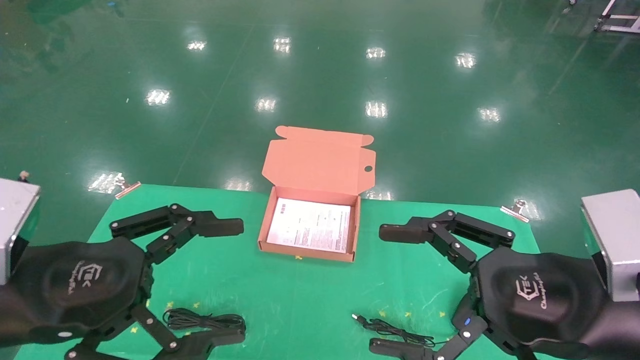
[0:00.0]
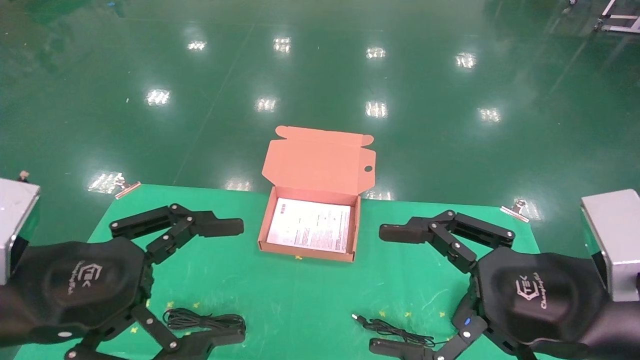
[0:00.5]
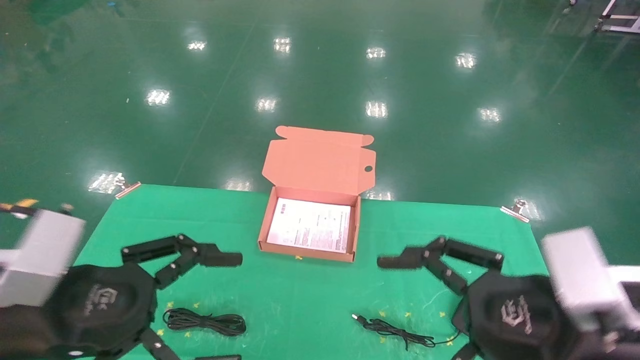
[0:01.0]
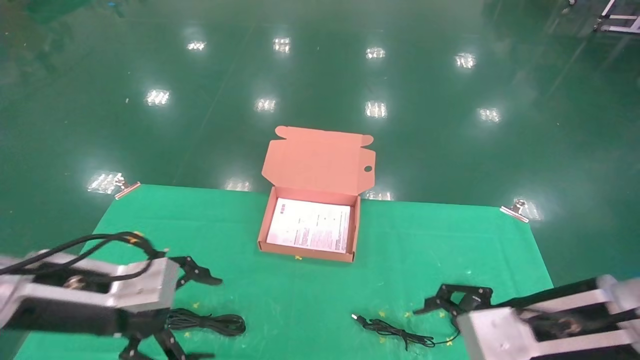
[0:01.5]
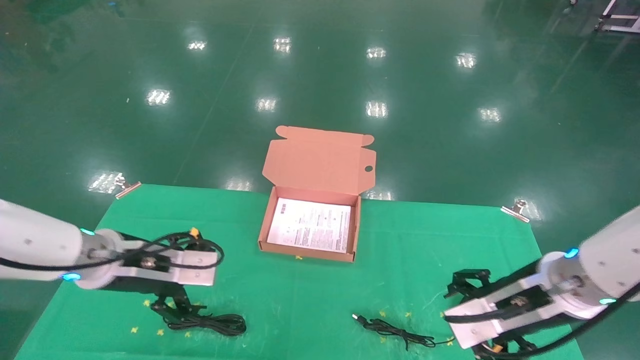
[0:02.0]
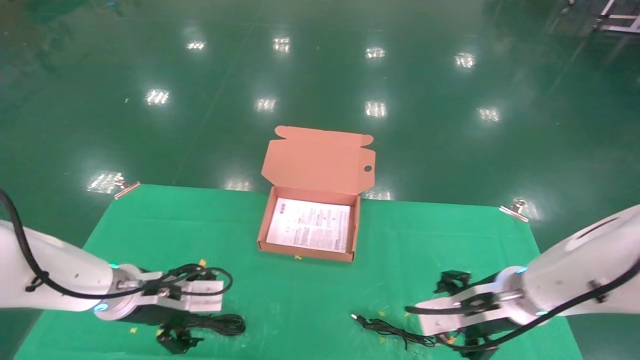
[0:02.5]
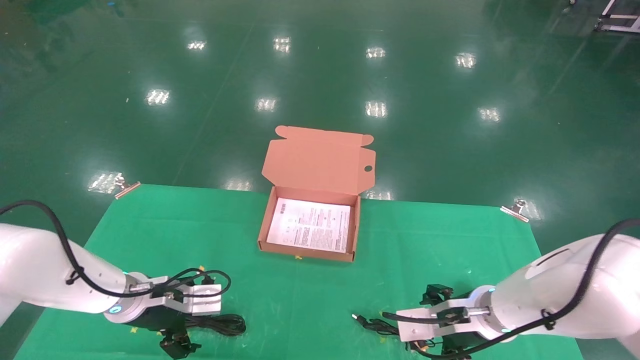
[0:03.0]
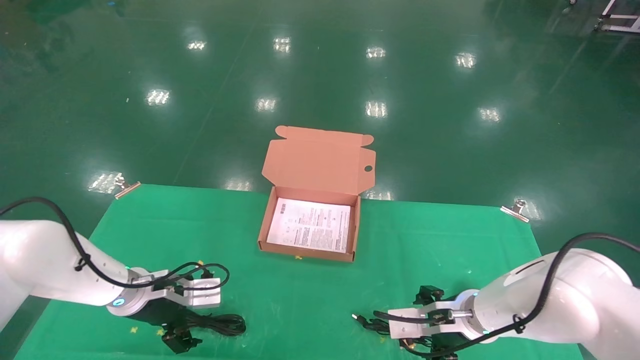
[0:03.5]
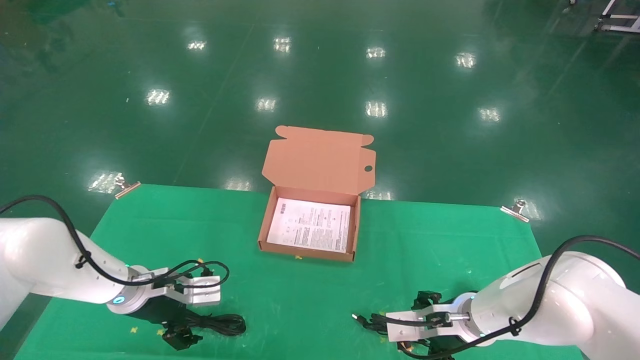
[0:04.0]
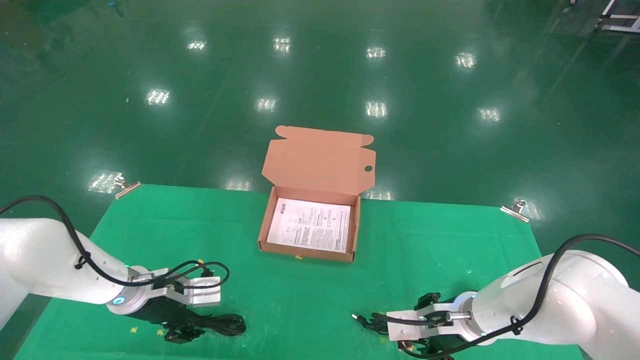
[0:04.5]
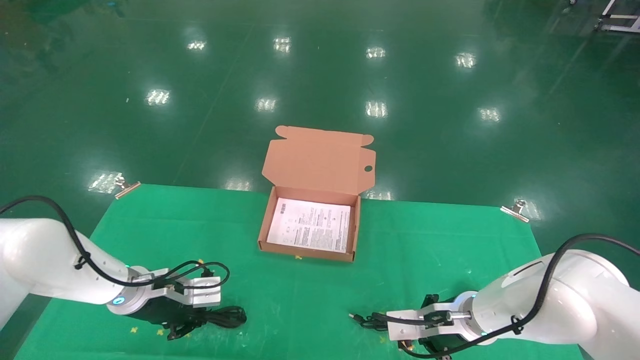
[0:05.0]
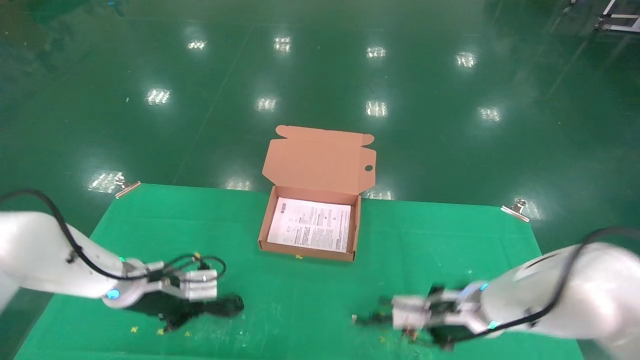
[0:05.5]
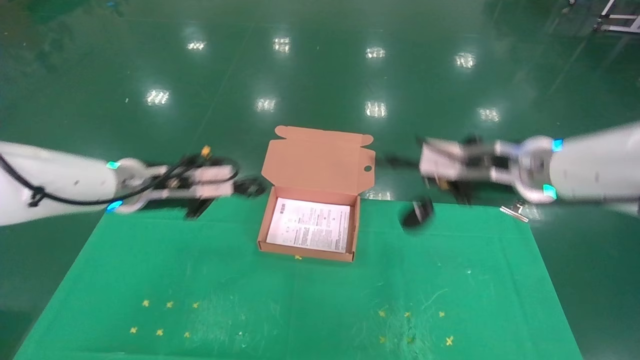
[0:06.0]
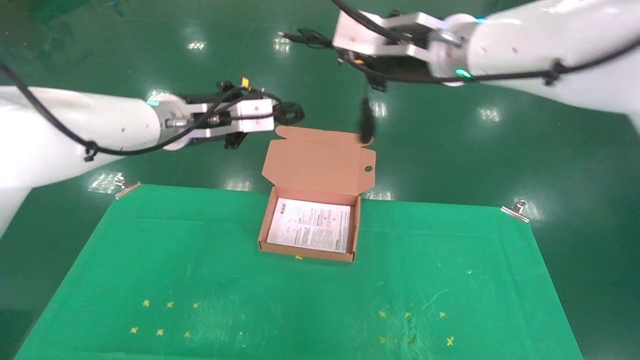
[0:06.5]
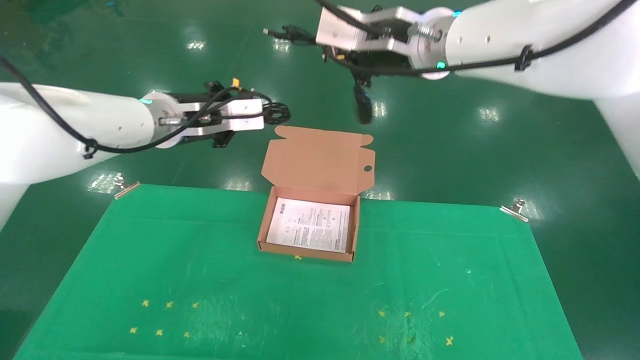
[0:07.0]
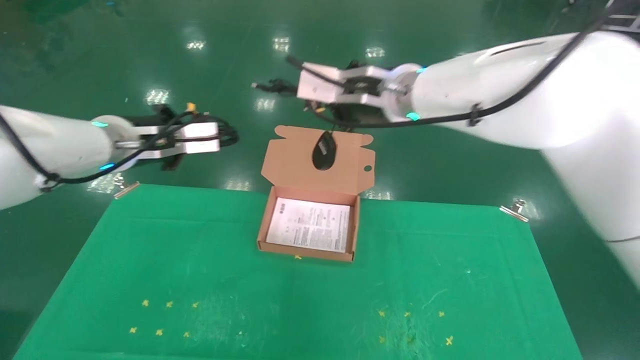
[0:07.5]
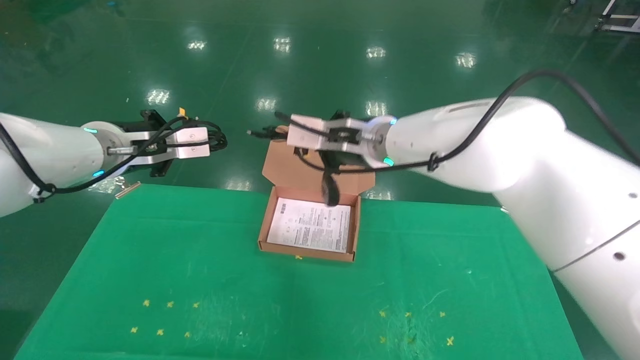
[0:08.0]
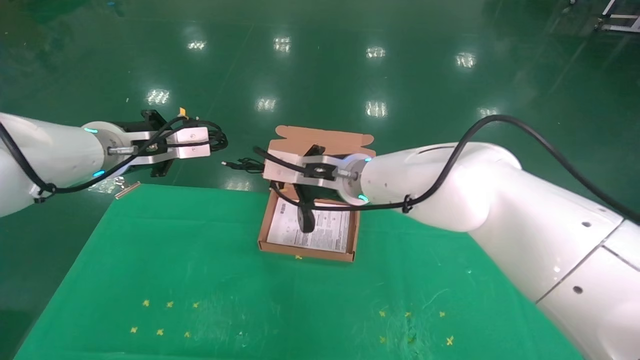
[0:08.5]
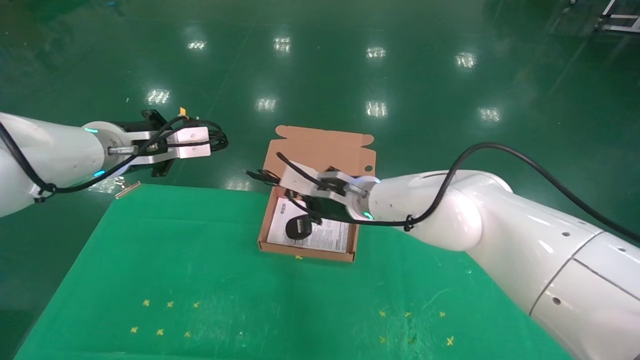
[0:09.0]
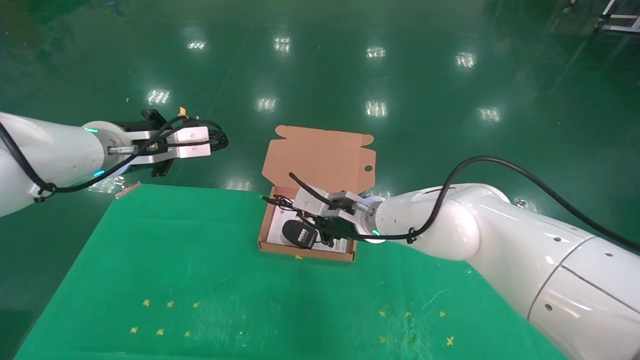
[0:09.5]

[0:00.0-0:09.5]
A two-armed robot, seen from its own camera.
Task of the whole recording: grasp data cable left put into box grasp mouse right put into box.
Step, 0:01.5 to 0:05.5: Grab and pick up both the mouse and power cord from the accessory packaging area at the same time.
0:00.0 to 0:02.0: Both grippers travel together forward and downward, approximately 15 cm.
0:02.0 to 0:04.0: The left gripper is displaced downward and forward by about 10 cm, while the right gripper moves downward, forward and to the left, some 15 cm.
0:04.0 to 0:05.5: The left gripper closes up, while the right gripper shifts about 5 cm upward, and closes.
0:05.5 to 0:07.5: The left gripper shifts approximately 20 cm upward; the right gripper is displaced upward and to the left by some 30 cm.
0:07.5 to 0:09.5: The right gripper goes about 20 cm downward.

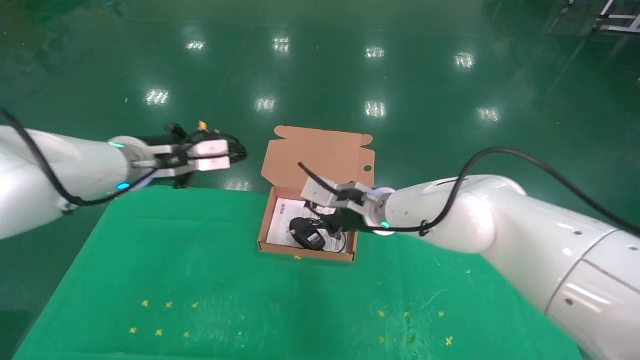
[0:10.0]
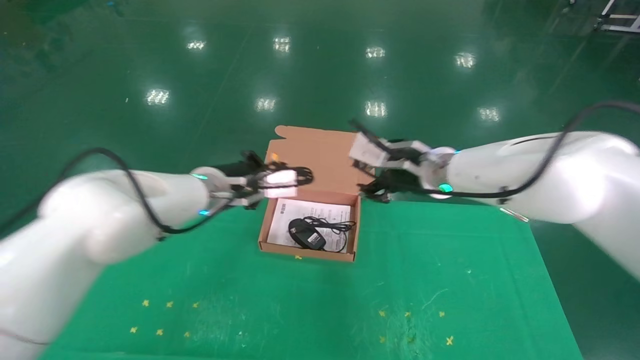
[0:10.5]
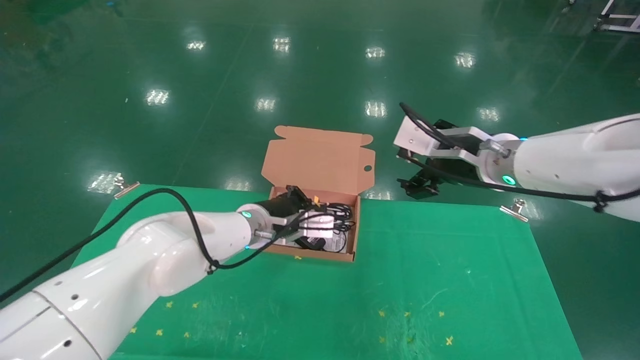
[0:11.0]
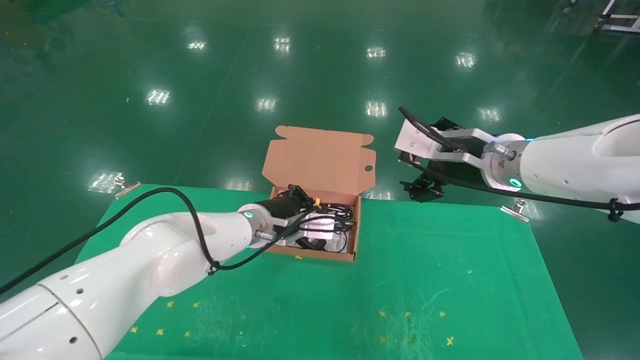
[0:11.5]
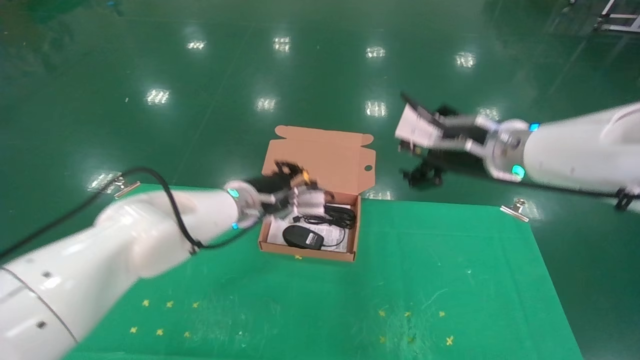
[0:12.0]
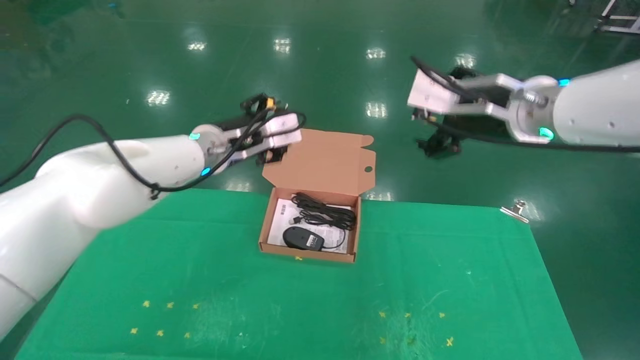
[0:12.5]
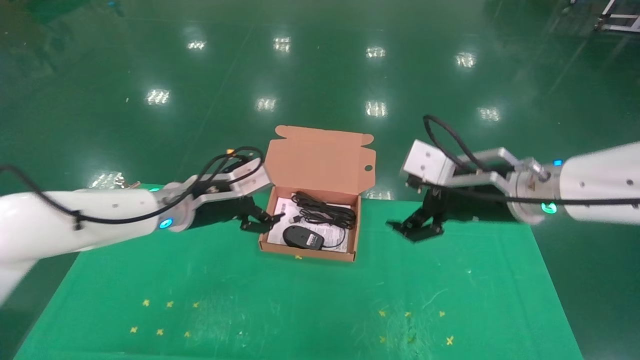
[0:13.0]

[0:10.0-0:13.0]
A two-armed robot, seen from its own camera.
Task of the whole recording: grasp data cable left put into box grasp mouse right put into box.
0:10.0 to 0:11.5: The left gripper heads to the right, downward and forward, covering about 20 cm. Meanwhile the right gripper moves to the right, upward and backward, some 15 cm, and opens its fingers.
0:11.5 to 0:13.0: The left gripper travels to the left by approximately 10 cm, and opens up.

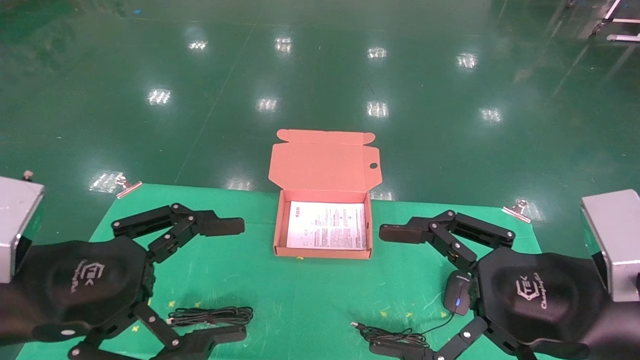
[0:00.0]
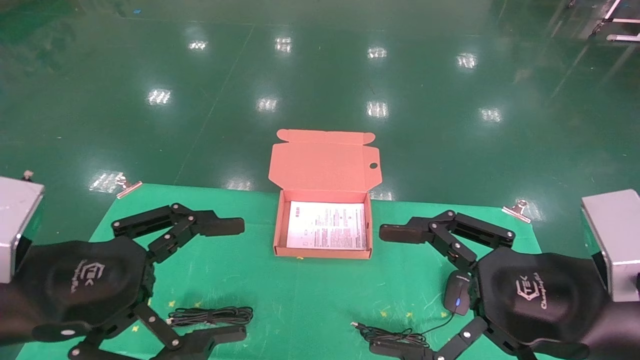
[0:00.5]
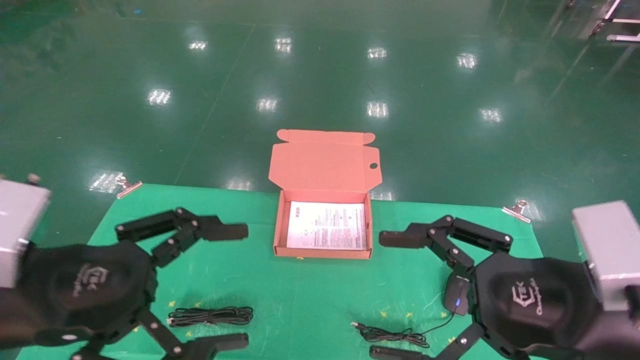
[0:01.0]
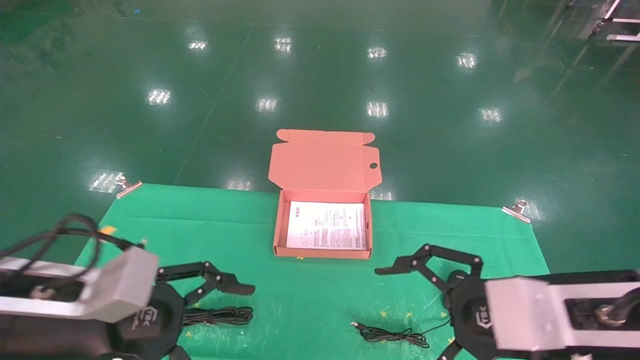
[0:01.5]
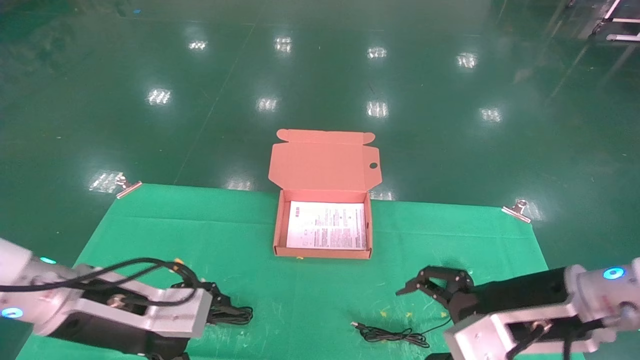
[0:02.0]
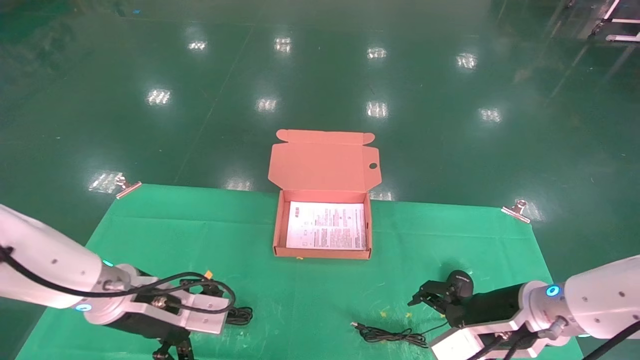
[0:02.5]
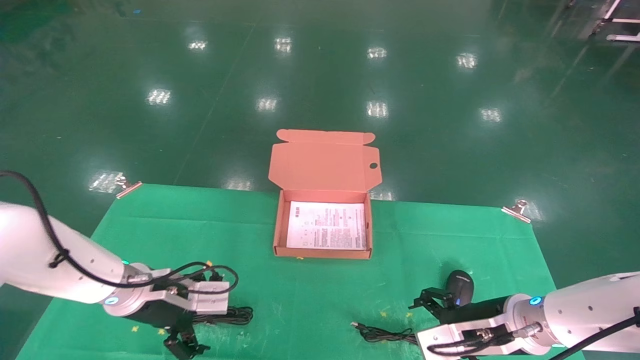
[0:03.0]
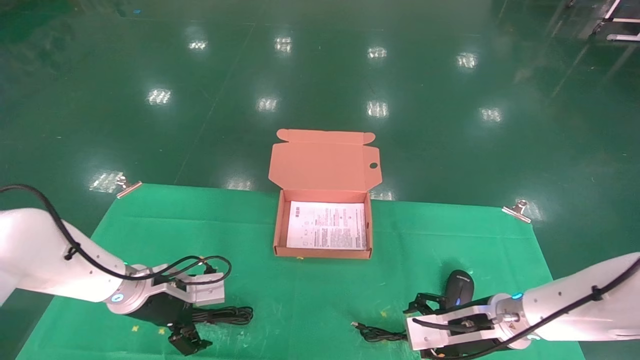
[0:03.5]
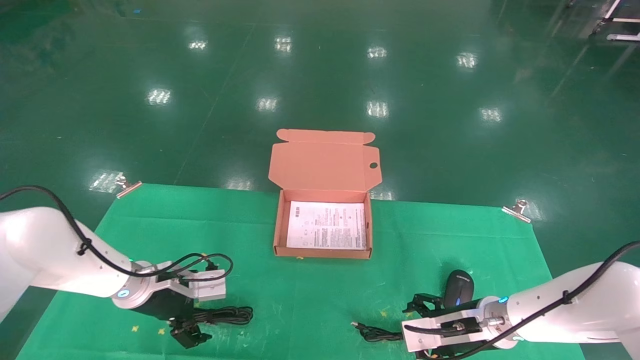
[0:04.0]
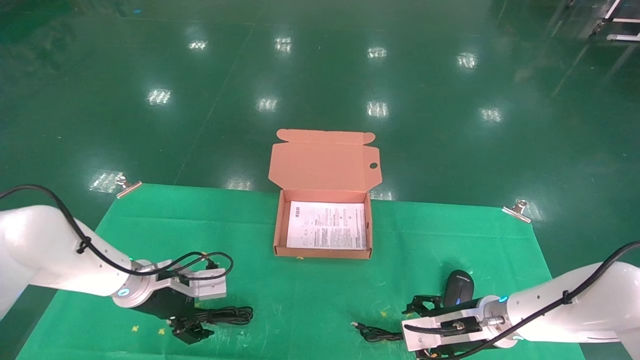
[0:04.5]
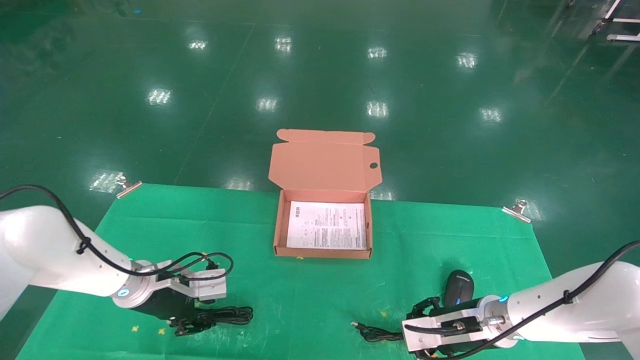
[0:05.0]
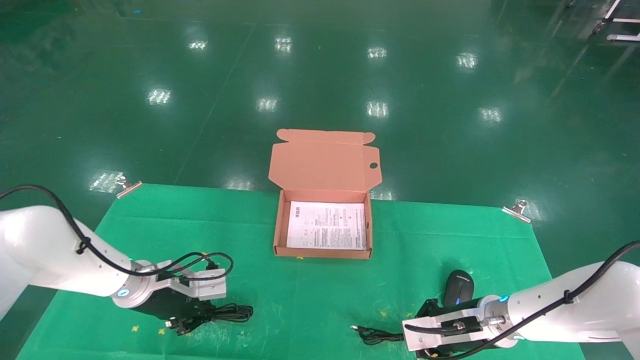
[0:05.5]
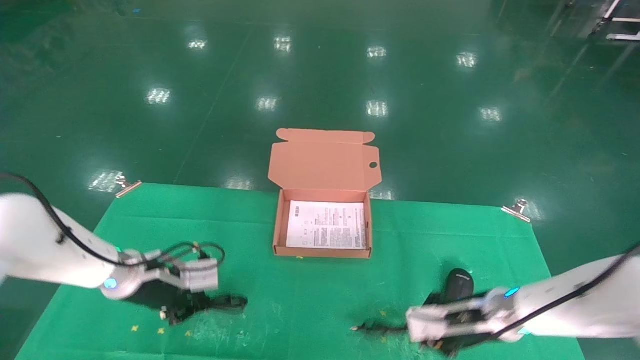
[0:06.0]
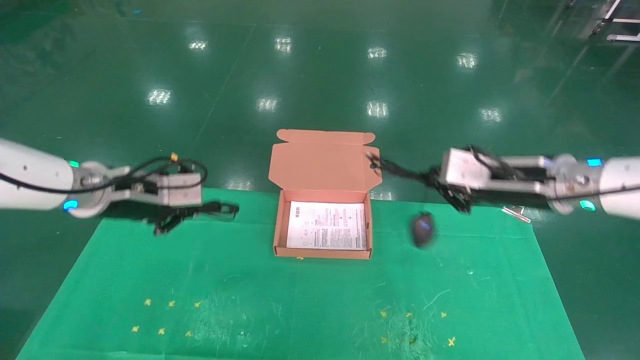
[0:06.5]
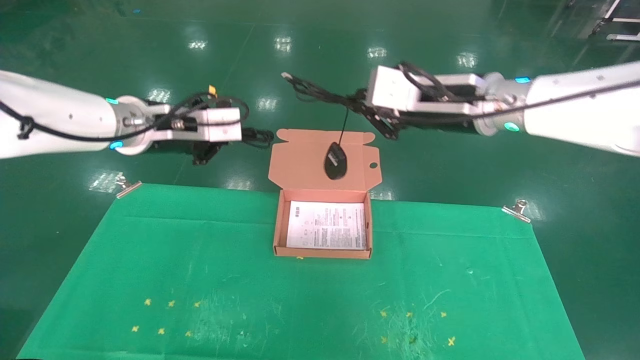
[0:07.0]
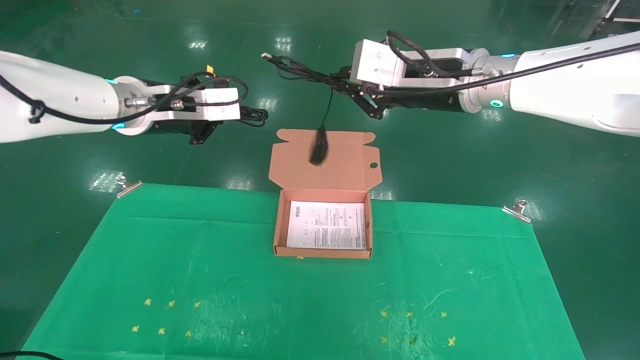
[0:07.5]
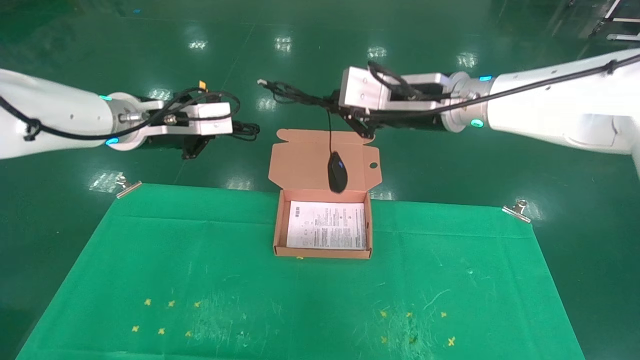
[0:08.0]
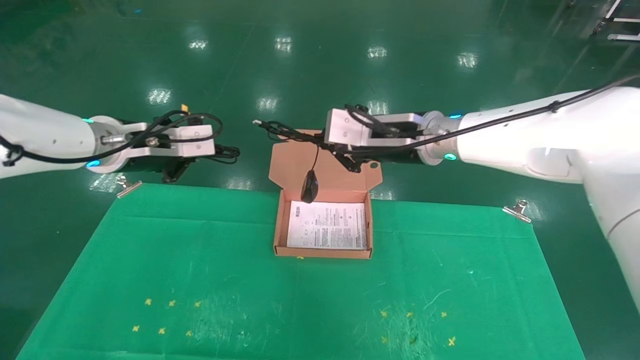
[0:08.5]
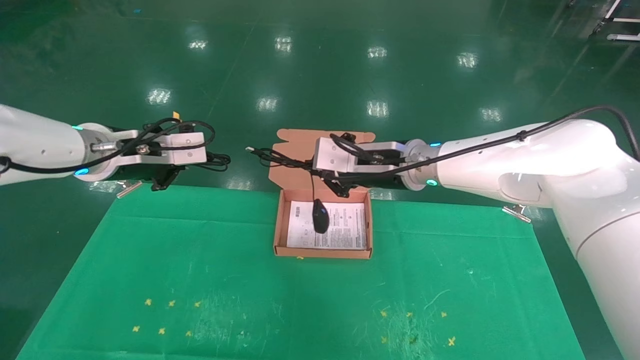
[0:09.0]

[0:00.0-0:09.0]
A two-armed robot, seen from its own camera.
Task of the whole recording: grasp data cable left put into box grasp mouse right put into box.
Step, 0:01.5 to 0:05.5: Grab and pick up both the mouse and power cord from the accessory packaging area at the same time.
0:00.0 to 0:02.0: The left gripper goes about 10 cm forward and downward. Meanwhile the right gripper shifts some 10 cm forward.
0:02.0 to 0:04.5: The right gripper is displaced downward and forward by approximately 20 cm; the left gripper heads forward and downward, covering approximately 20 cm.
0:04.5 to 0:07.0: Both grippers move upward, some 30 cm. The left gripper closes its fingers; the right gripper closes up.
0:07.0 to 0:09.0: The left gripper changes place by approximately 5 cm. Meanwhile the right gripper shifts approximately 10 cm downward and to the left.
